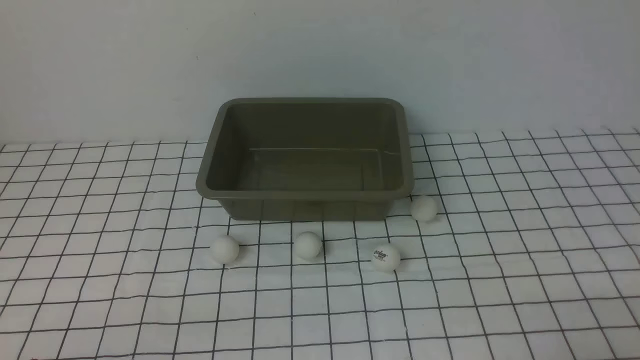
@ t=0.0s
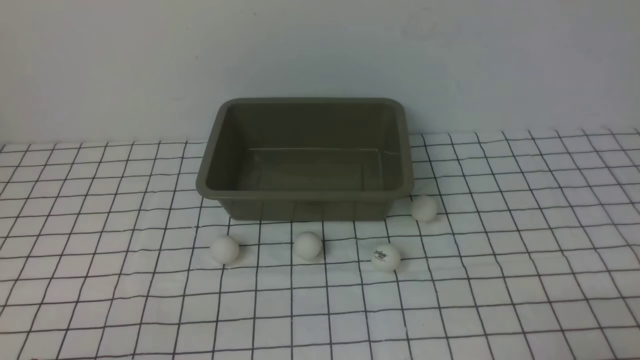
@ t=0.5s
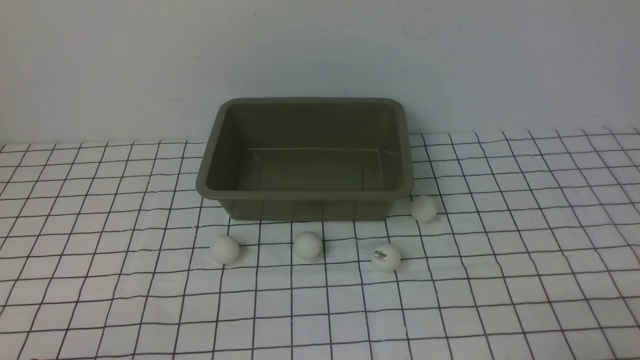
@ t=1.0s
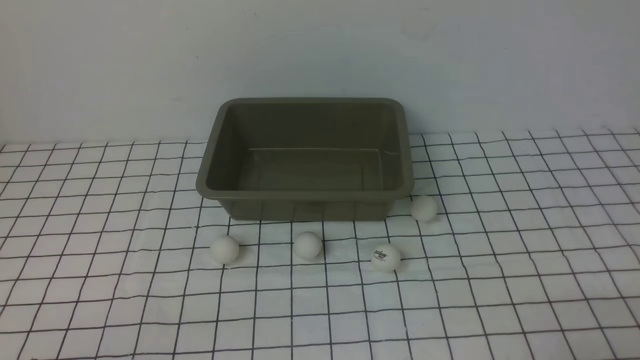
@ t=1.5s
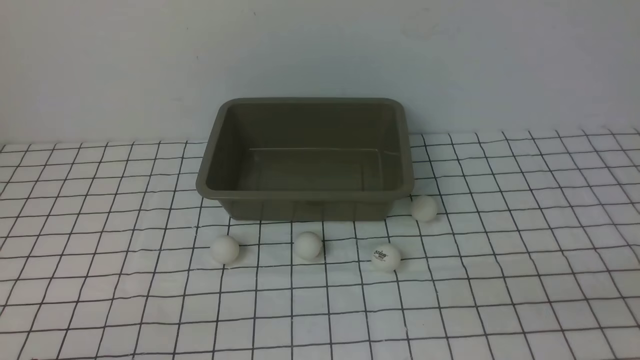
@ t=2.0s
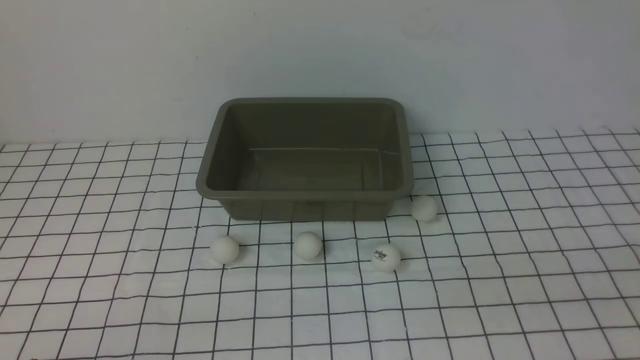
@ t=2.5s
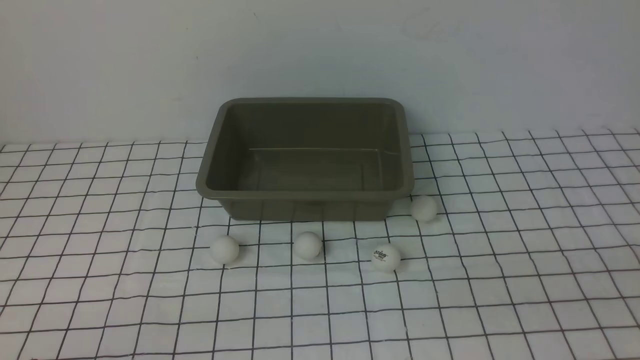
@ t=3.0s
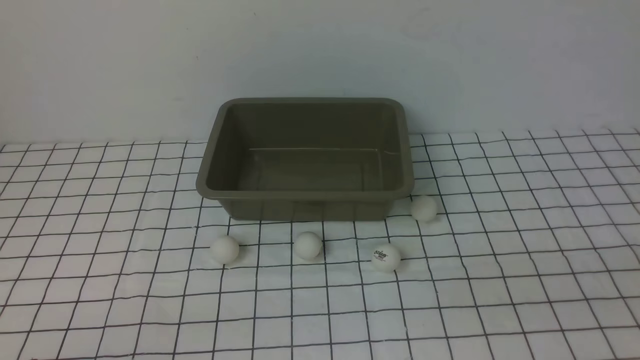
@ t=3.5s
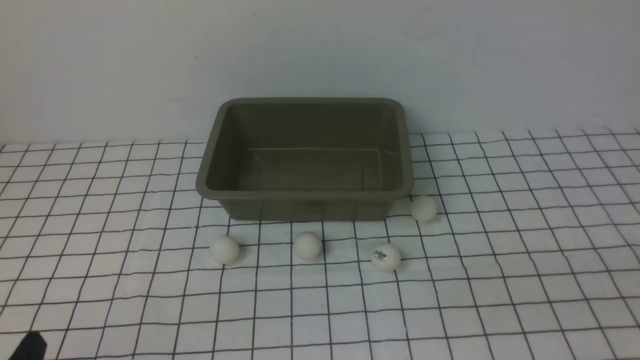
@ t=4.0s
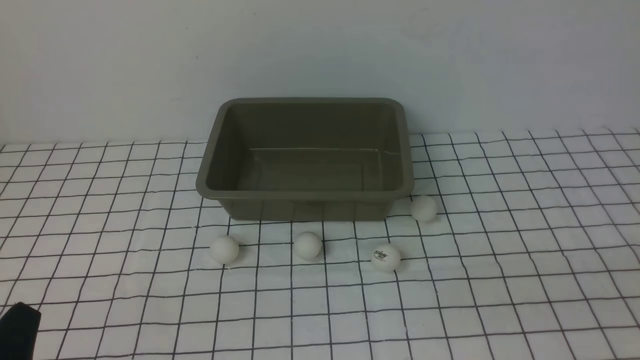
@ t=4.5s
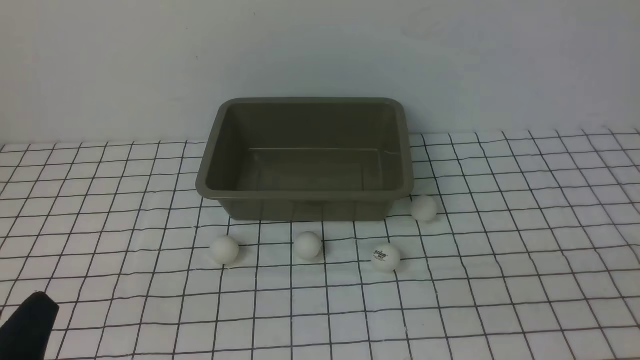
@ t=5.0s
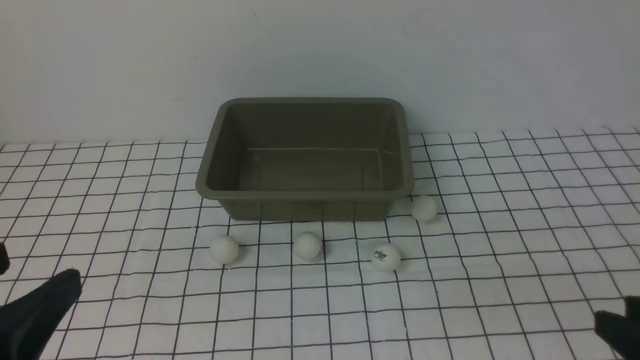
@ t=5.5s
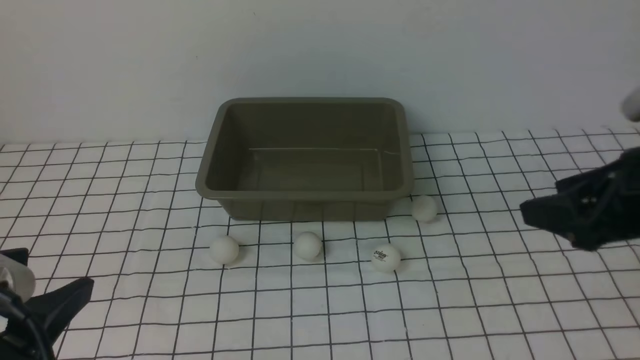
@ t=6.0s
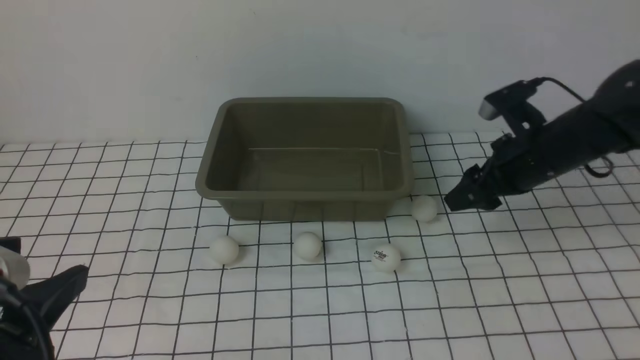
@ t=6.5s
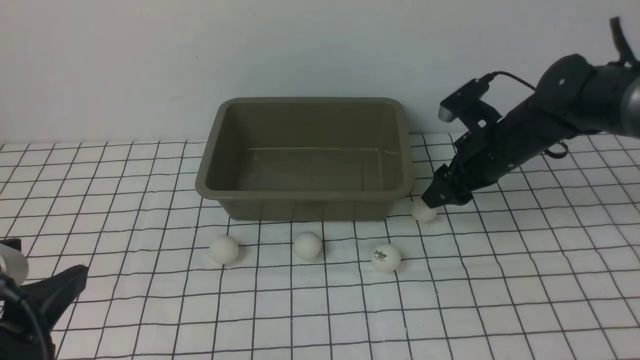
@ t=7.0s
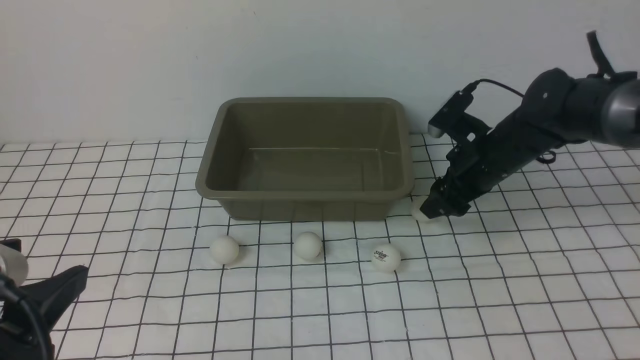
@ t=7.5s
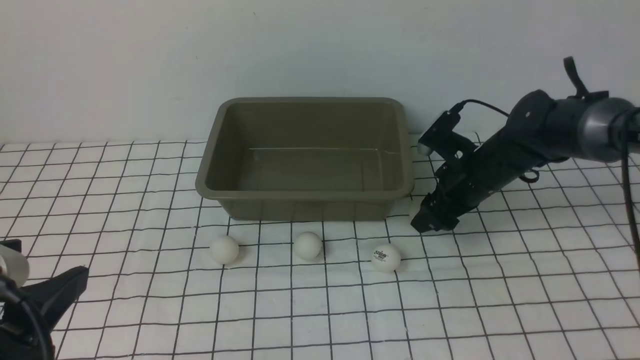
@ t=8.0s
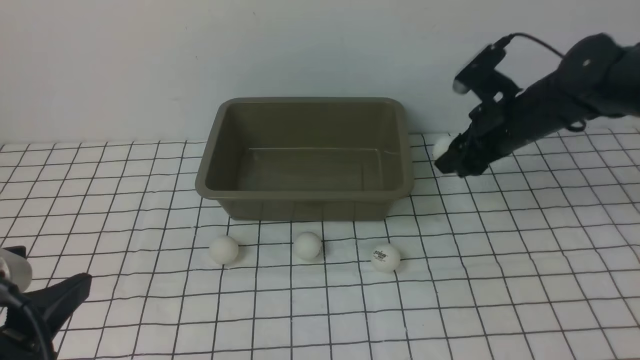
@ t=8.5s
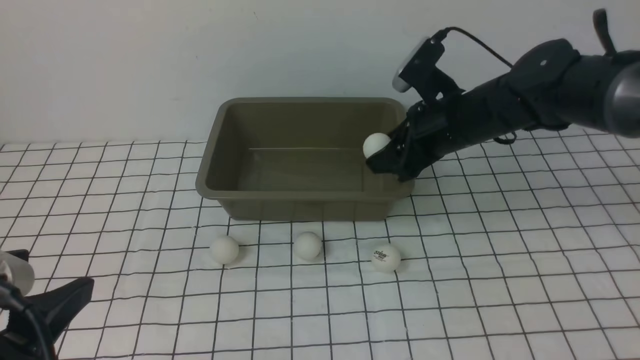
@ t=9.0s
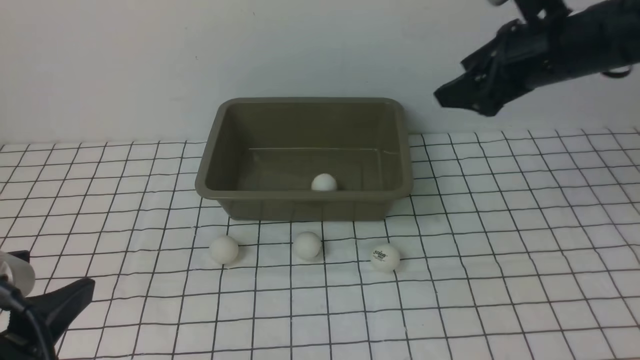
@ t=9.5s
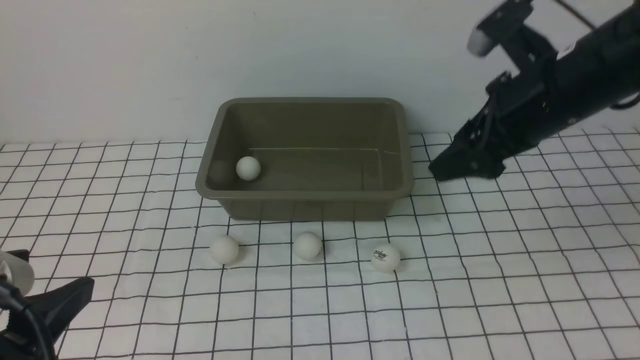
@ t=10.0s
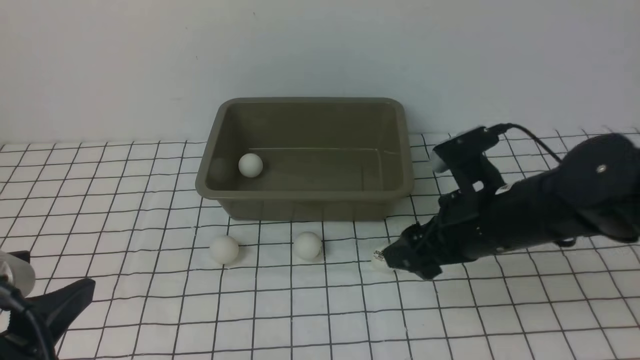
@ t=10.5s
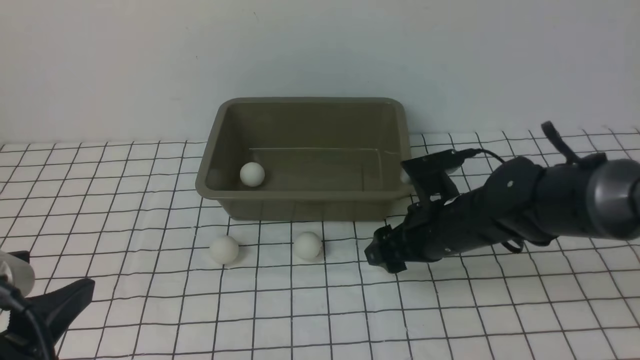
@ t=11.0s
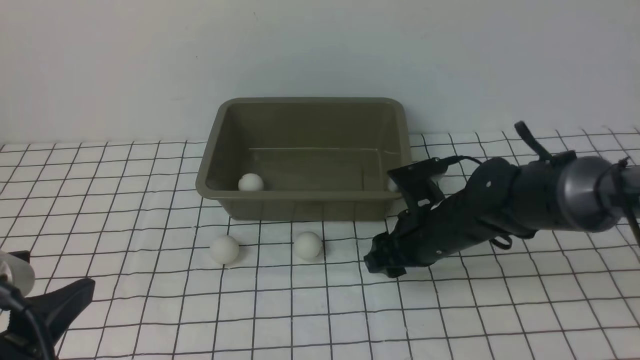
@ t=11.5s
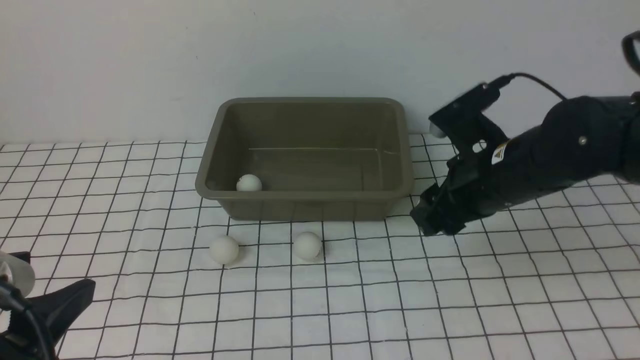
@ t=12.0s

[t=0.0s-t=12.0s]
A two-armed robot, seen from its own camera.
Step, t=0.0s to t=8.0s: use the right arm to clamp the table tennis ball closest to it.
Step, t=9.5s to t=11.5s: use the right arm to clamp the table tennis ball closest to it.
t=4.0s to t=6.0s: The right gripper moves forward, approximately 20 cm, and opens up; the left gripper is displaced upward by about 15 cm.
t=6.0s to t=8.0s: The right gripper shifts about 25 cm forward and downward.
t=8.0s to t=10.0s: The right gripper moves upward and backward, approximately 20 cm, and opens up.
t=10.0s to t=12.0s: The right gripper travels downward by approximately 5 cm, and closes its fingers.

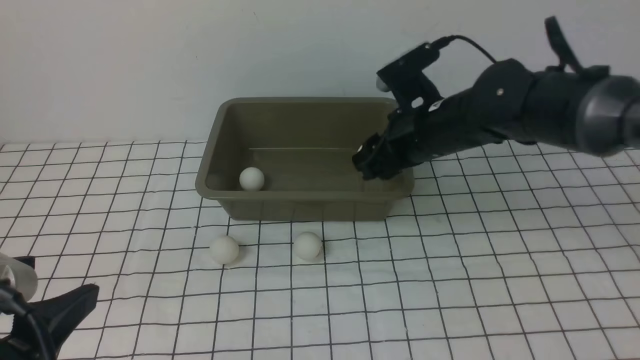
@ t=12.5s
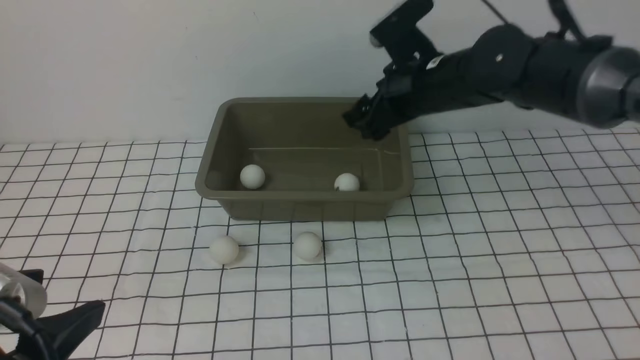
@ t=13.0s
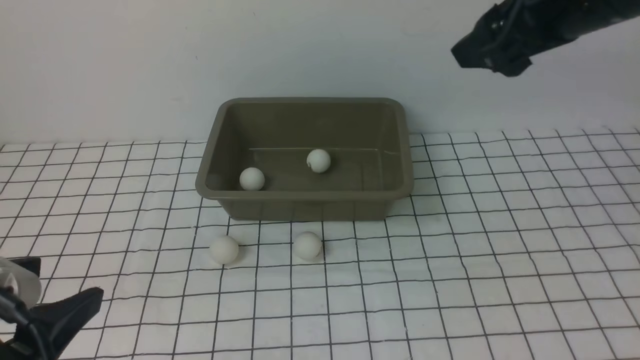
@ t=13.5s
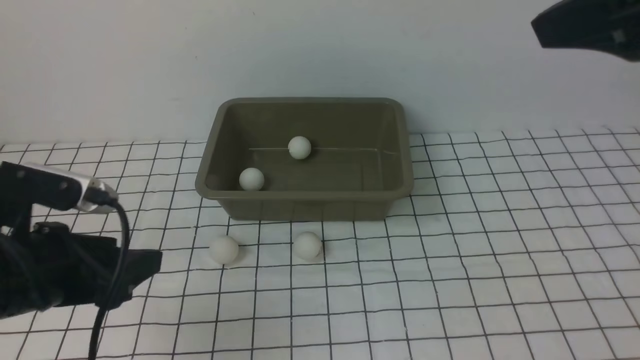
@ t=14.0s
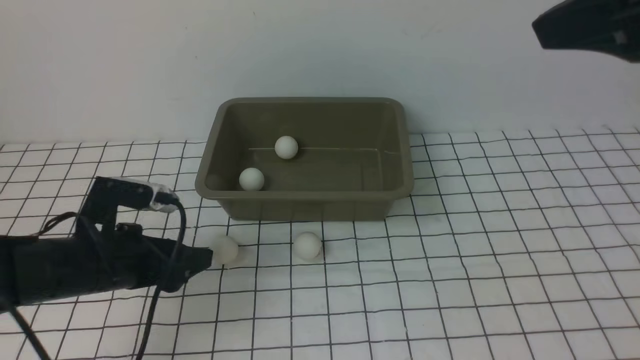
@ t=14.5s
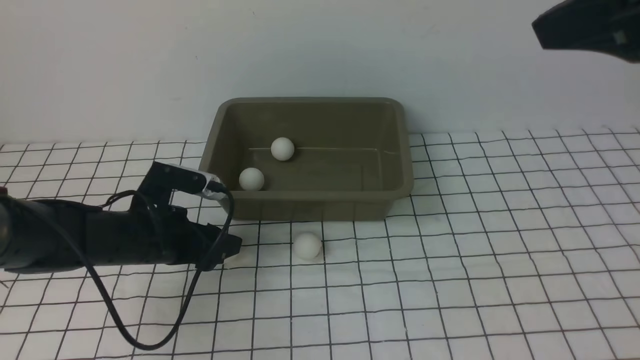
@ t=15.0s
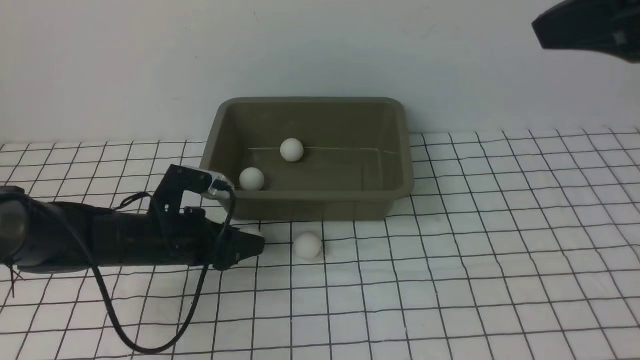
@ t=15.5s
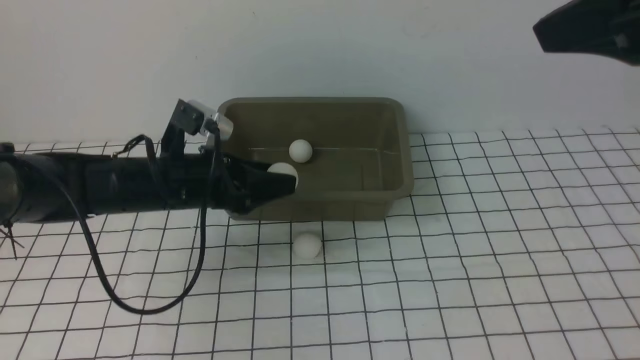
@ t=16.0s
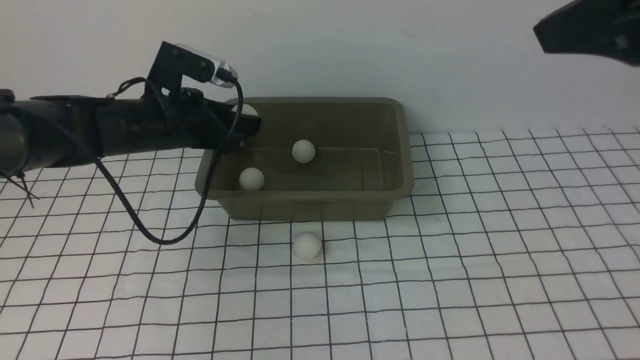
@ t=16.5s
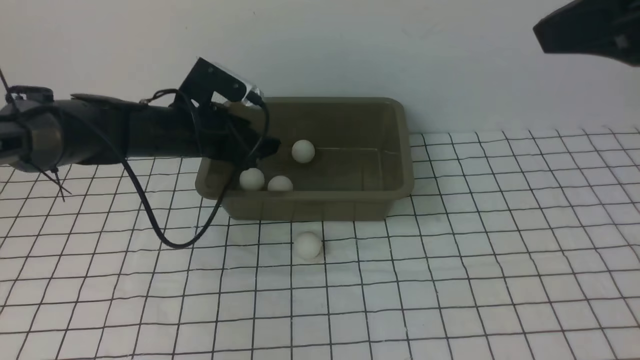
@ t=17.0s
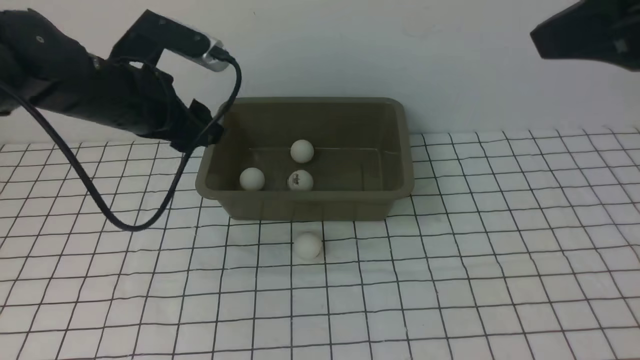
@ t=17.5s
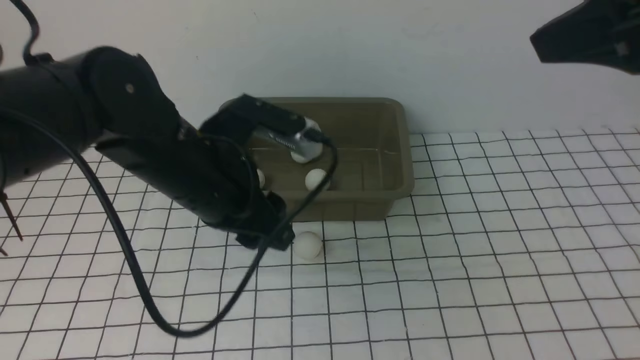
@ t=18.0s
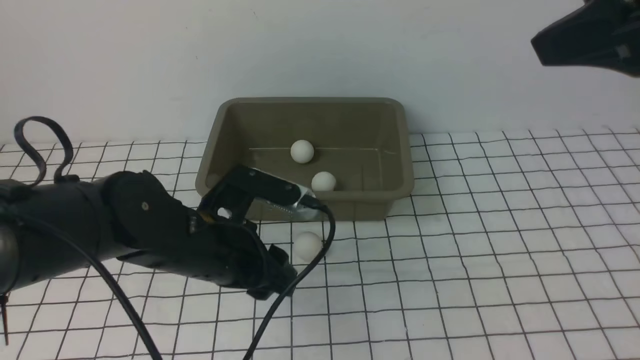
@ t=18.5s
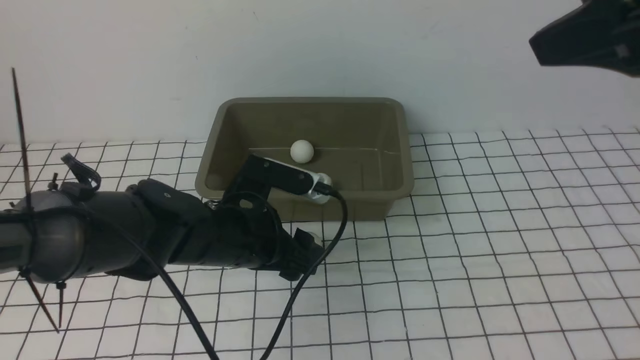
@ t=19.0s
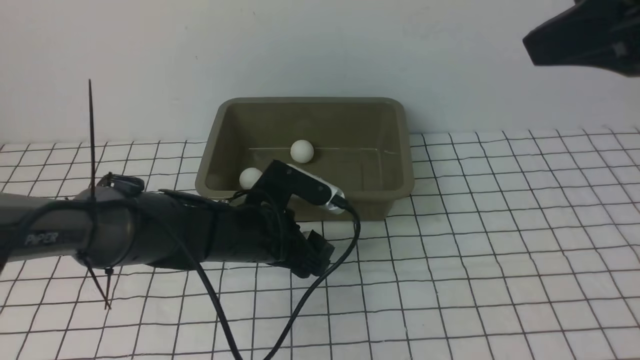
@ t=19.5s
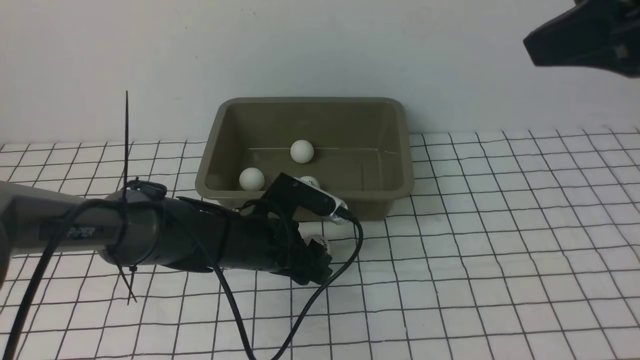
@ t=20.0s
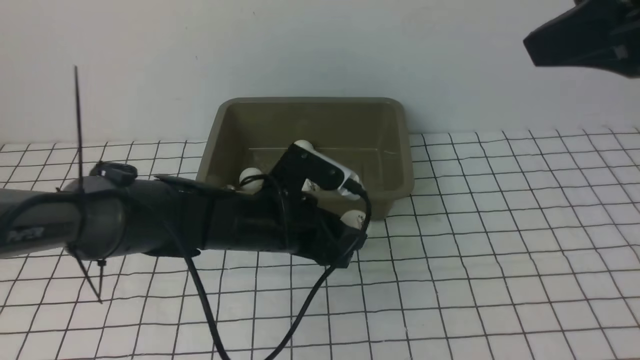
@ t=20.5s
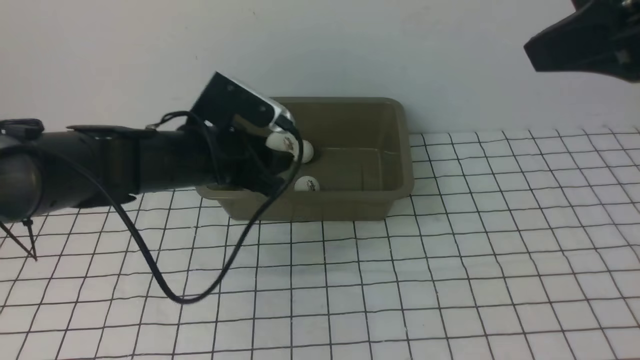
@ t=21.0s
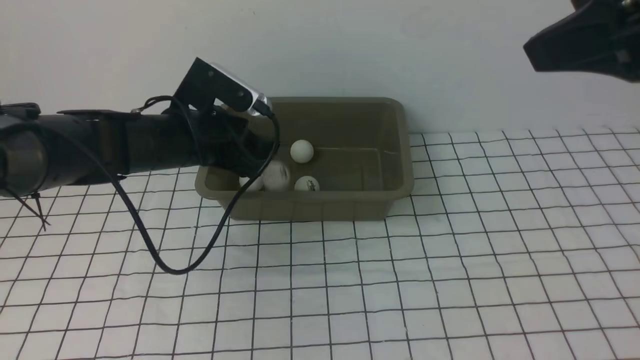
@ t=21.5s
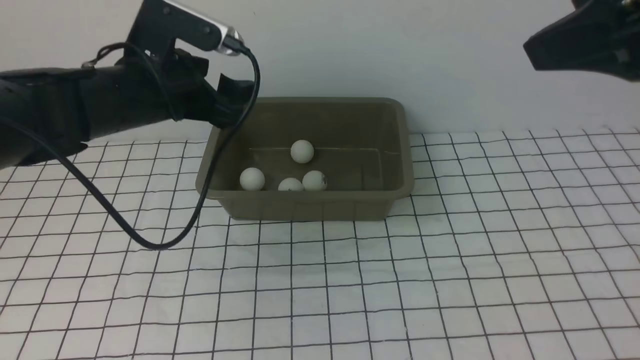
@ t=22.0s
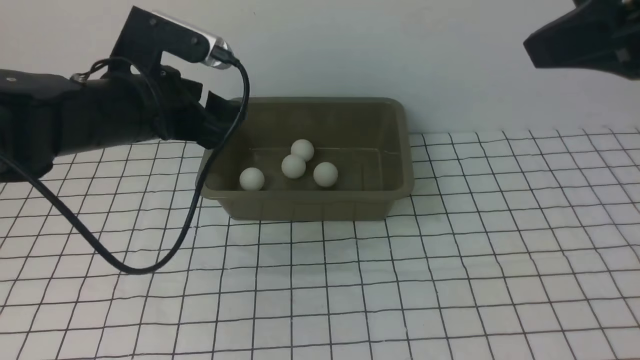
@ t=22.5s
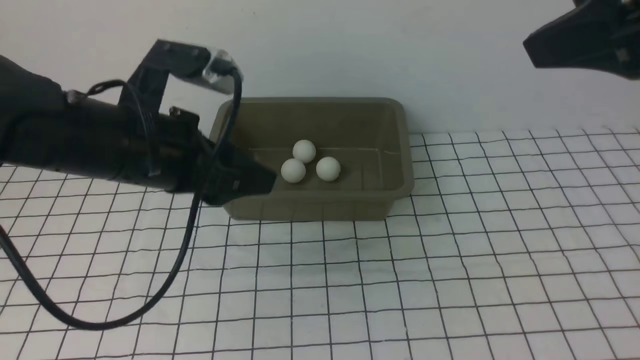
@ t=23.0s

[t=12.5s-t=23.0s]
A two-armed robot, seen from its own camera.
Step, t=13.5s to t=15.5s: use the left arm to clamp the table tennis ball closest to it.
Step, t=16.0s to t=17.0s: use the left arm to put the table tennis ball into the box.
Step, t=17.5s to t=20.5s: use the left arm to clamp the table tennis ball closest to it.
Step, t=21.0s to t=21.5s: use the left arm to put the table tennis ball into the box.
t=12.5s to t=14.5s: The right gripper moves upward, backward and to the right, some 30 cm, and opens up. The left gripper moves forward and downward, roughly 25 cm.
t=14.5s to t=16.5s: The left gripper is displaced forward and upward by approximately 15 cm, and closes, then reopens.
t=16.5s to t=19.0s: The left gripper shifts approximately 15 cm backward, to the right and downward, and closes, then reopens.
t=19.0s to t=21.0s: The left gripper travels upward and to the left by about 10 cm, and closes its fingers.
t=21.0s to t=23.0s: The left gripper shifts some 10 cm backward and upward, and opens.
